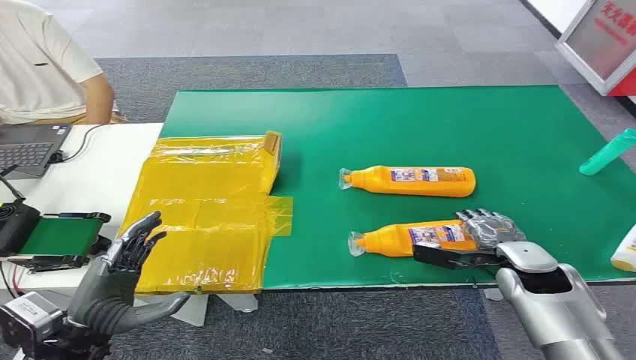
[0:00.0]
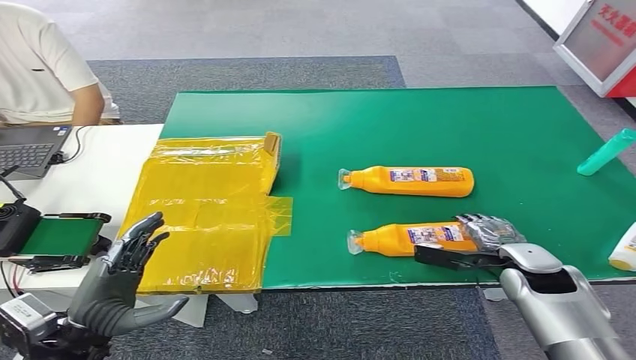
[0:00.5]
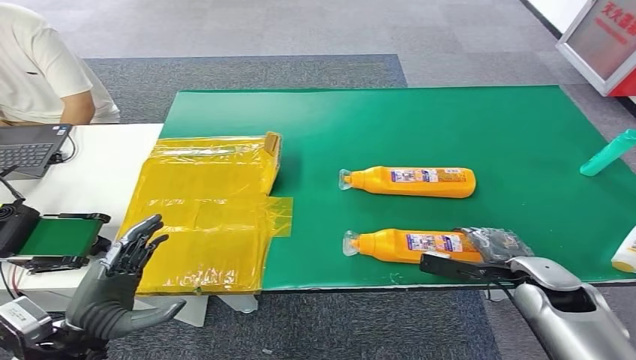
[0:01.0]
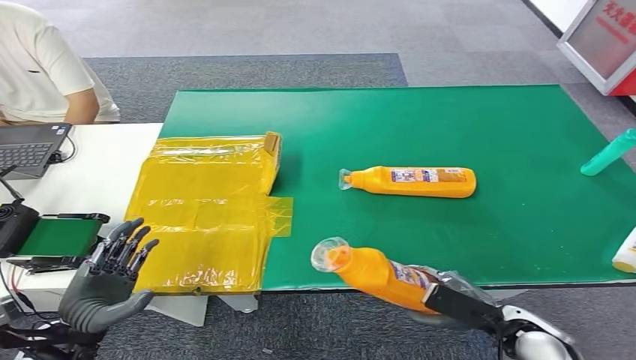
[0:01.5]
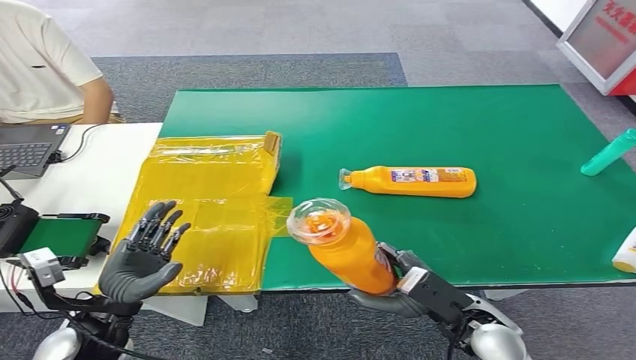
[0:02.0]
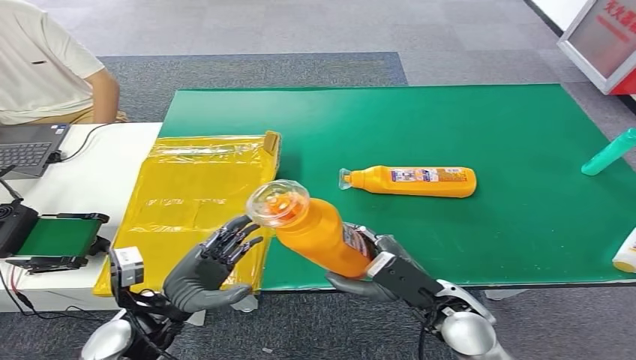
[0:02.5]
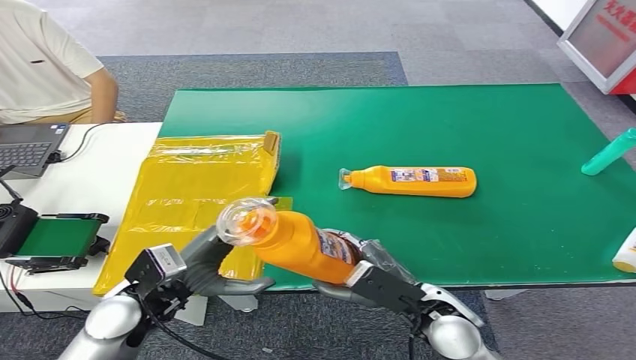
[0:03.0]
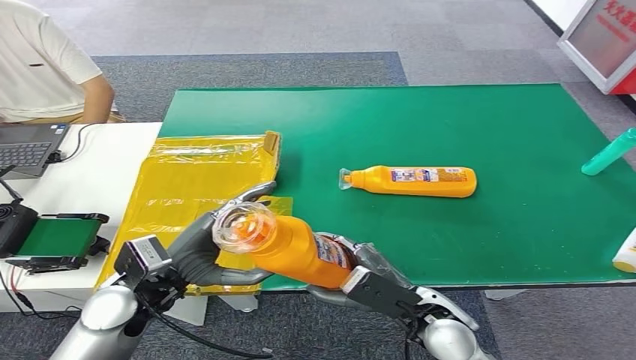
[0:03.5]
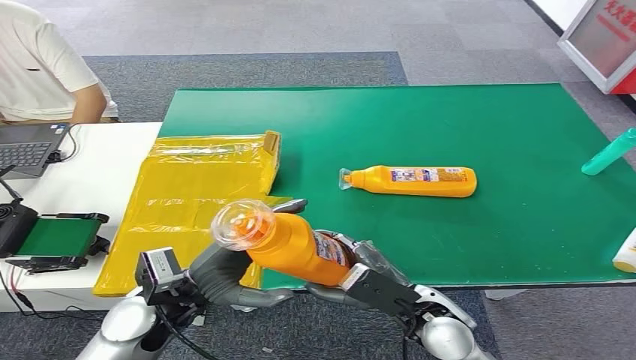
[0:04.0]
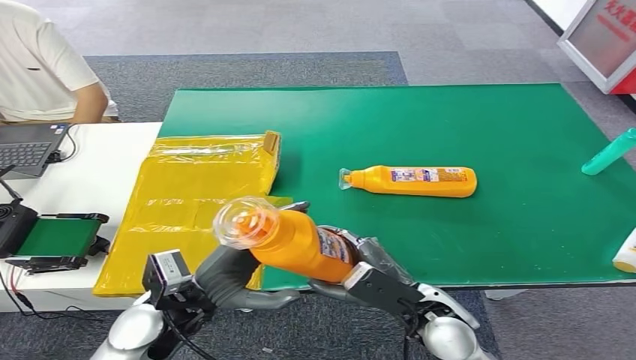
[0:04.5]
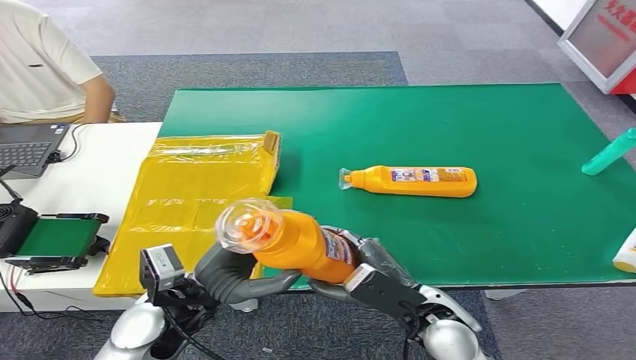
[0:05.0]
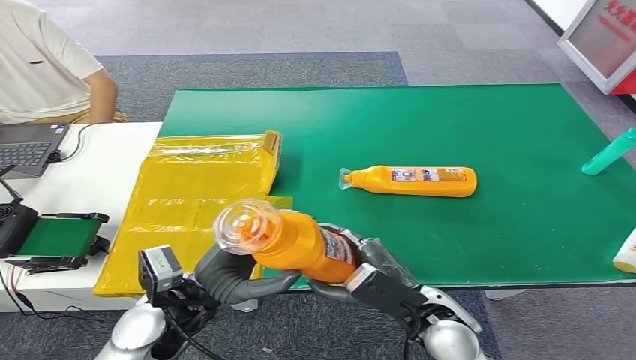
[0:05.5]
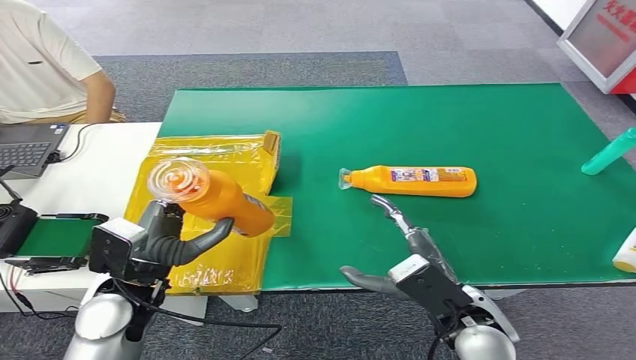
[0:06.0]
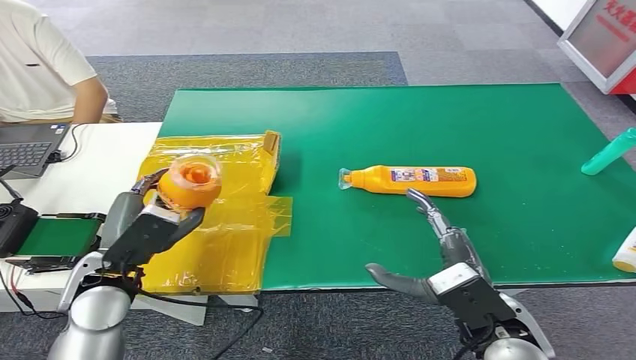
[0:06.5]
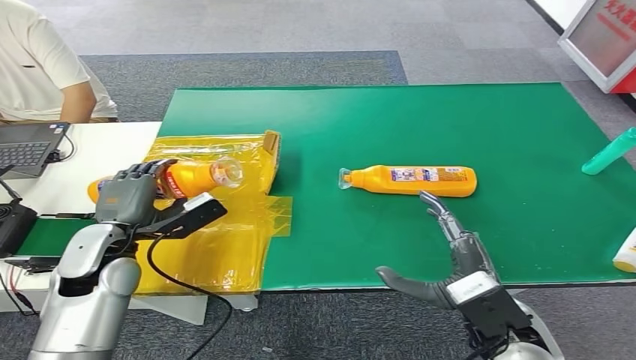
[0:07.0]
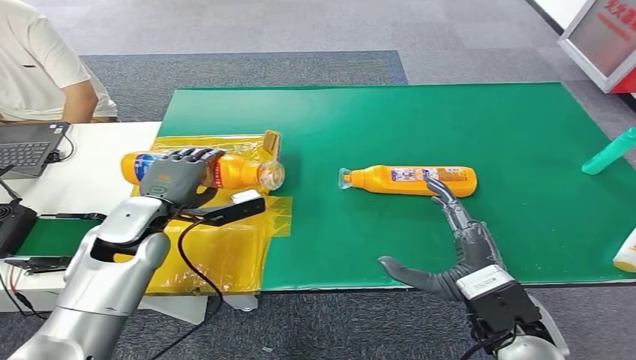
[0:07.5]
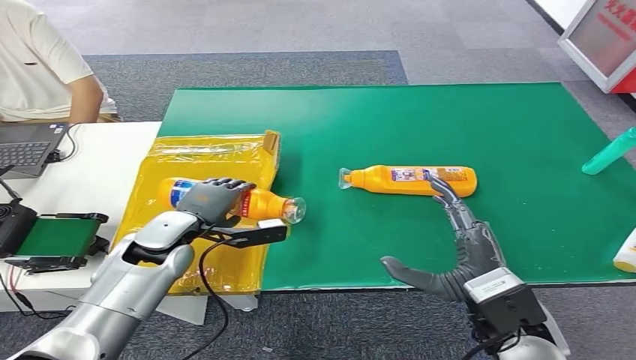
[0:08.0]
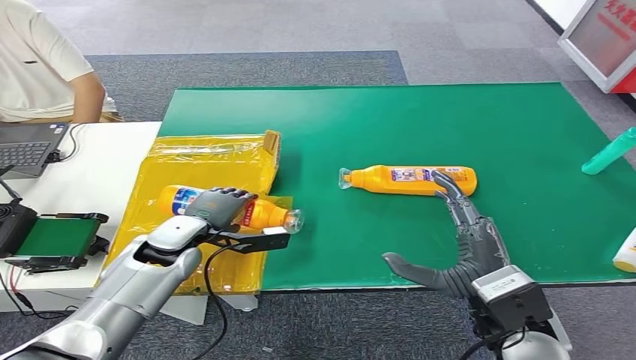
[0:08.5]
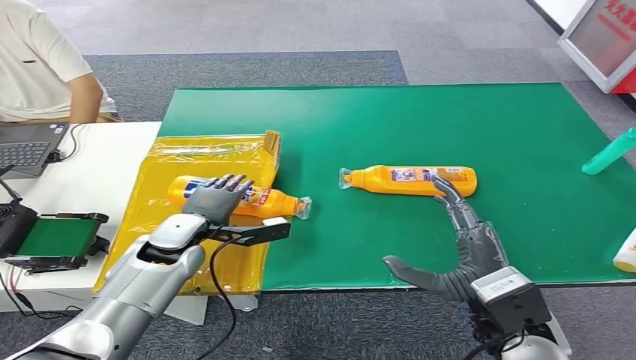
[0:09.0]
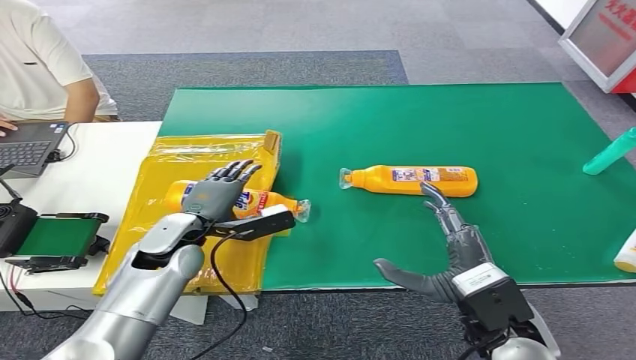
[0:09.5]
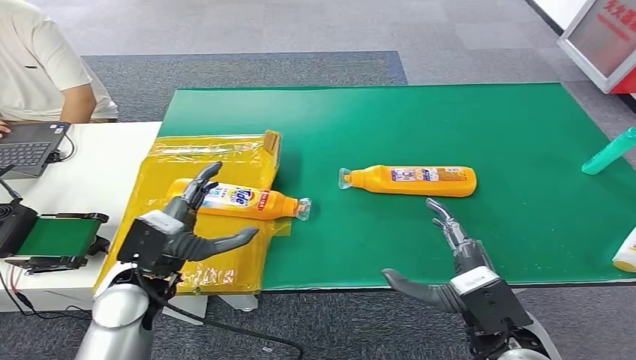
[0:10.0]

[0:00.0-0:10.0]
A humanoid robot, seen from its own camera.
Step, 0:00.0 to 0:02.0: Pick up the bottle from the table.
Step, 0:02.5 to 0:10.0: Turn the bottle to the front side.
0:02.0 to 0:04.0: The right hand goes roughly 5 cm to the left; the left hand heads to the right, covering some 10 cm.
0:04.0 to 0:06.0: The right hand changes place by about 5 cm.
0:06.0 to 0:08.0: The right hand moves some 5 cm, while the left hand heads forward, covering some 10 cm.
0:08.0 to 0:10.0: The left hand travels backward by roughly 10 cm.

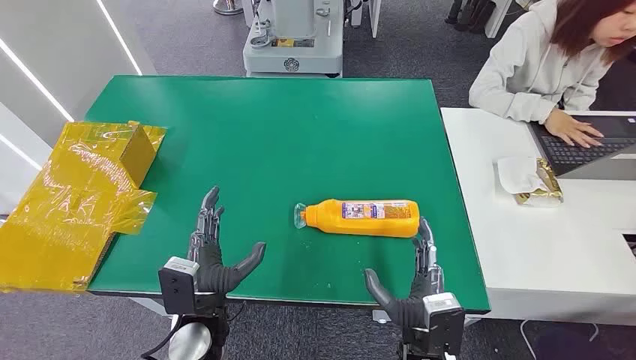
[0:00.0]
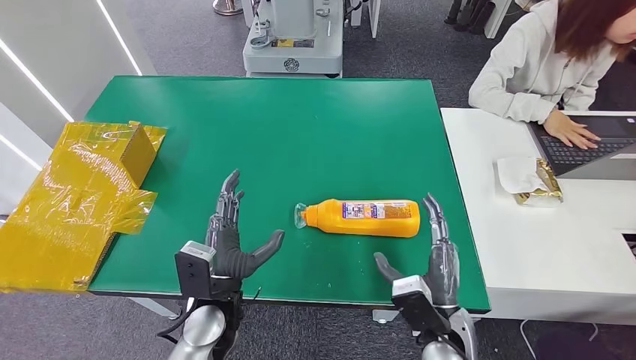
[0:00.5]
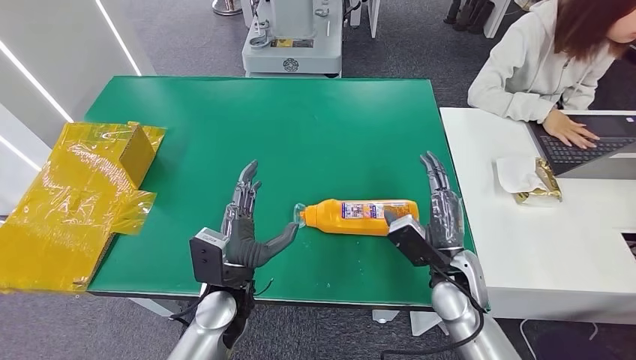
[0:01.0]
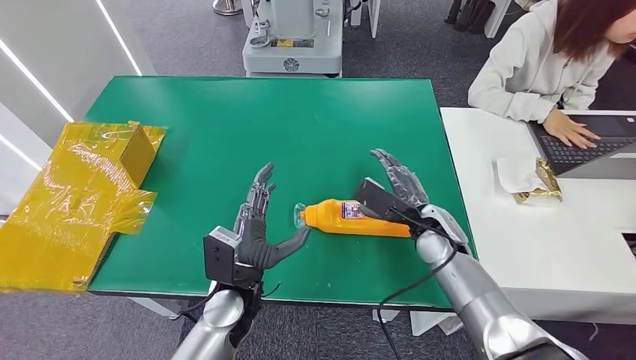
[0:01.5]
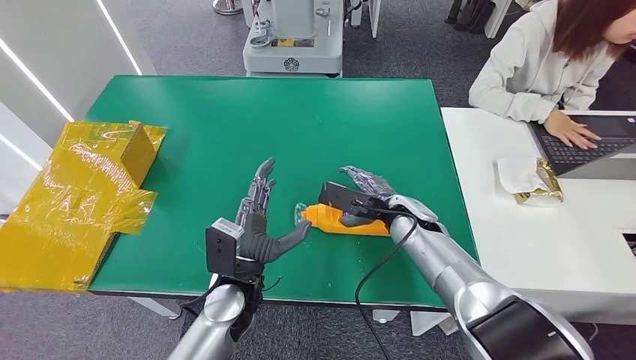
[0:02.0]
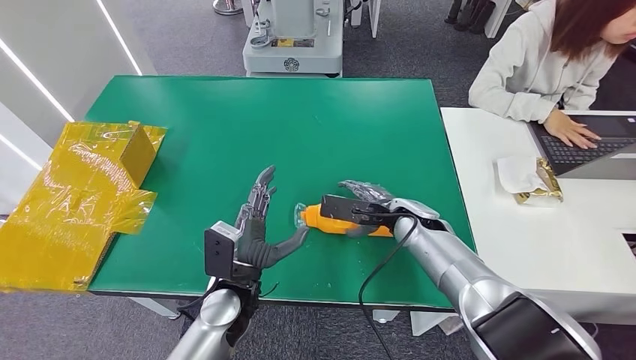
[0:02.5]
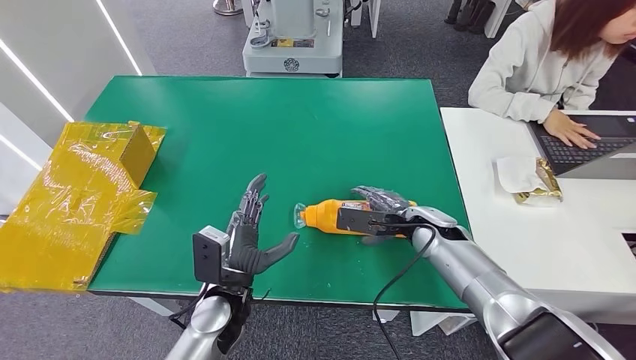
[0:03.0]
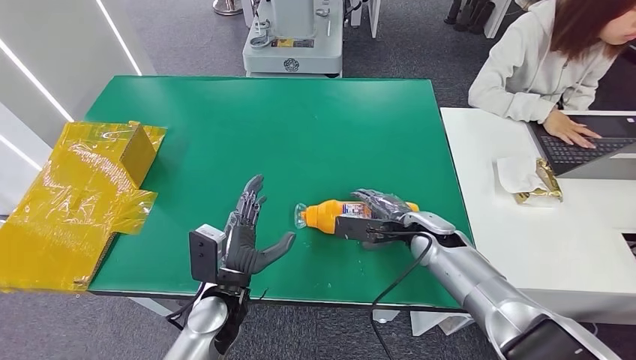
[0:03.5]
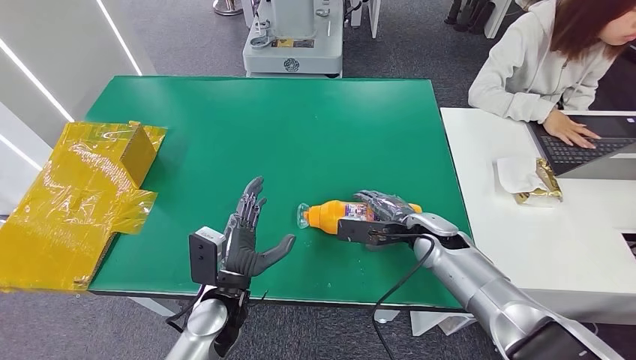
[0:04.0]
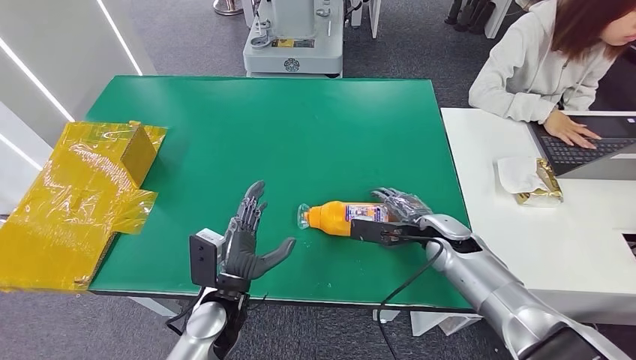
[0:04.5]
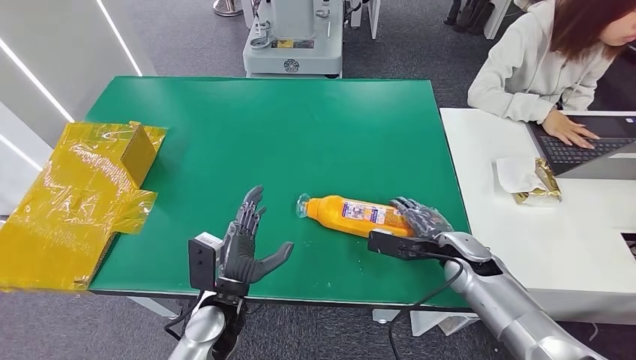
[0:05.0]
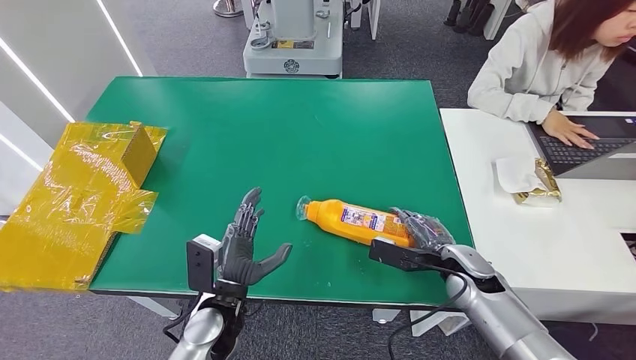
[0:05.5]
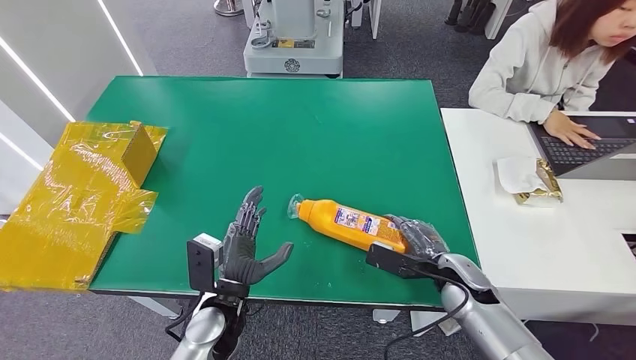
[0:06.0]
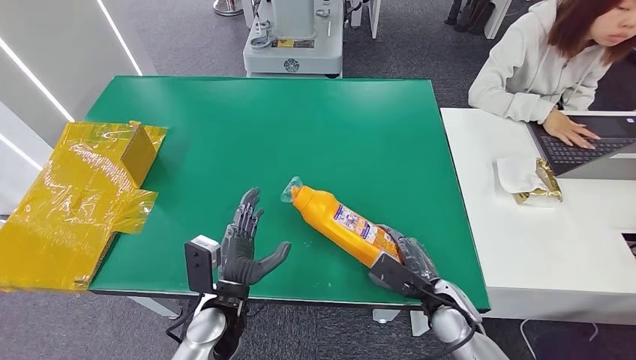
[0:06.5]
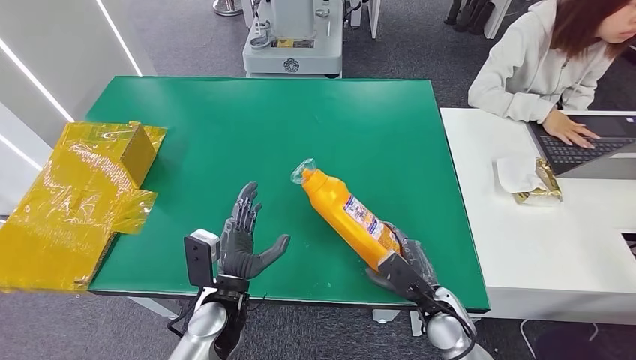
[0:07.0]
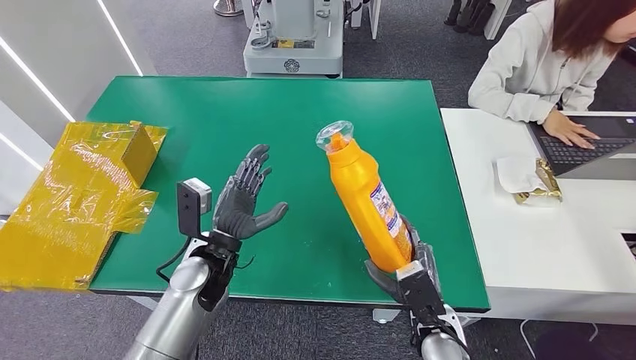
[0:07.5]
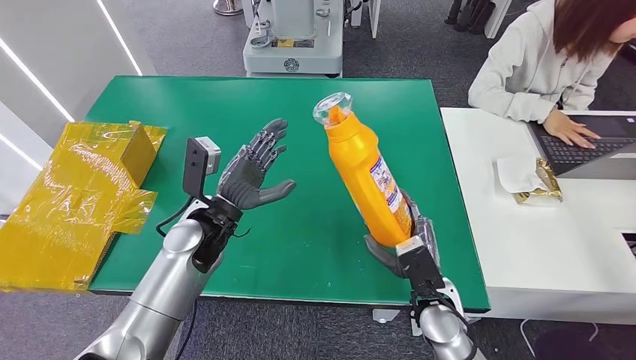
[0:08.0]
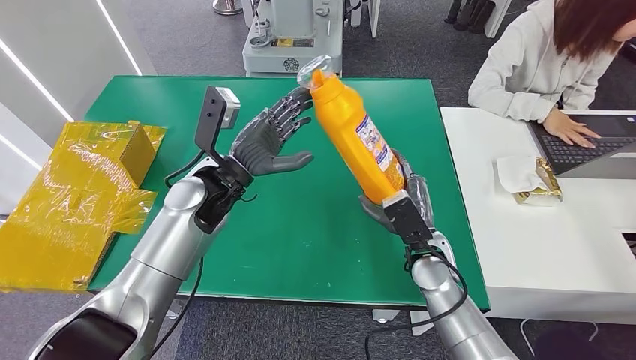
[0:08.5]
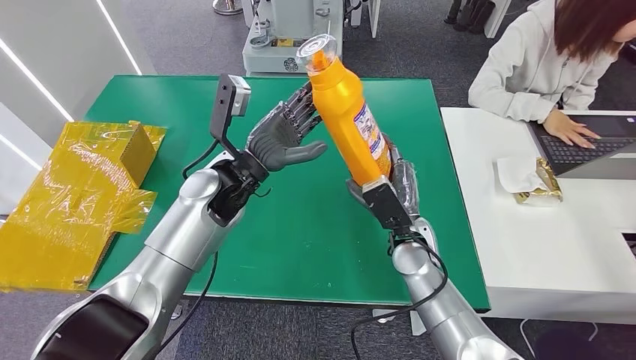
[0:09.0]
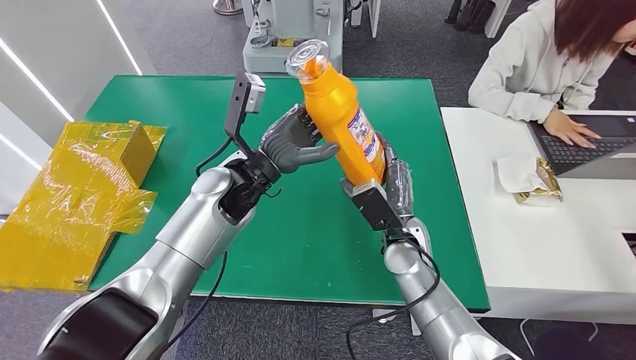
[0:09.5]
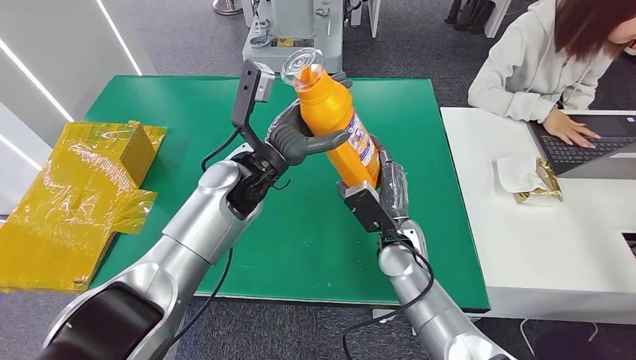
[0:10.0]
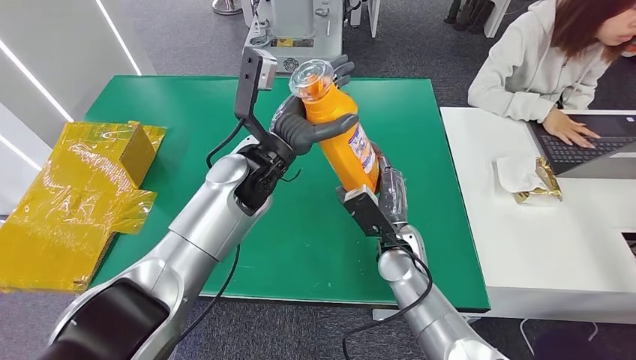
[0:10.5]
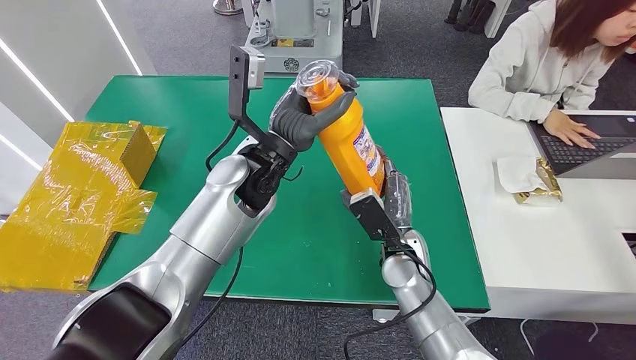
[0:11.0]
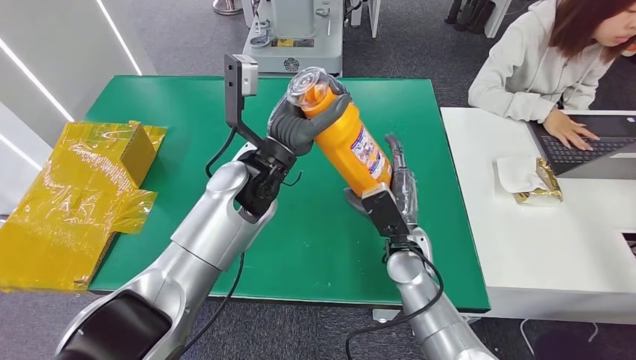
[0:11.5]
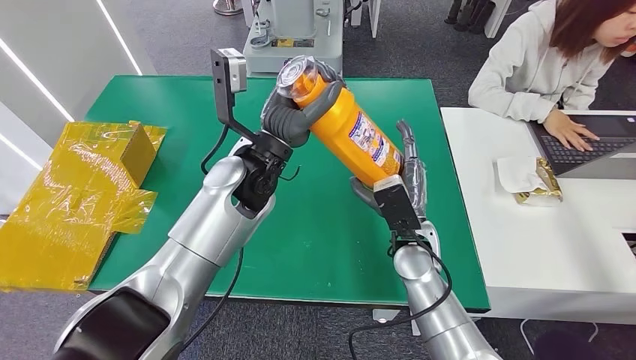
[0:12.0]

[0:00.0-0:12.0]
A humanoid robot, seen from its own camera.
Step, 0:00.0 to 0:07.5: Pick up the bottle from the table.
0:02.0 to 0:04.0: The right hand shifts by about 5 cm.
0:04.0 to 0:06.0: The right hand goes roughly 5 cm backward.
0:06.0 to 0:08.0: The right hand travels to the left by some 5 cm; the left hand shifts roughly 15 cm forward and upward.
0:08.0 to 0:10.0: The left hand moves upward, to the right and forward, roughly 10 cm. Meanwhile the right hand goes roughly 10 cm forward and to the left.
0:10.0 to 0:12.0: The hands make only small movements.
